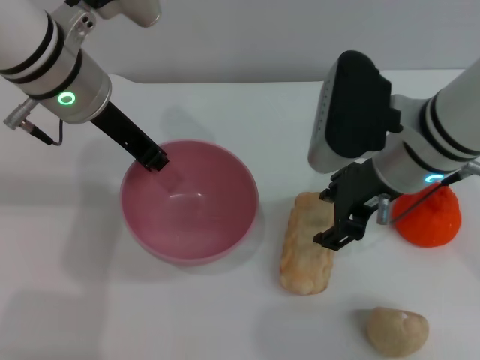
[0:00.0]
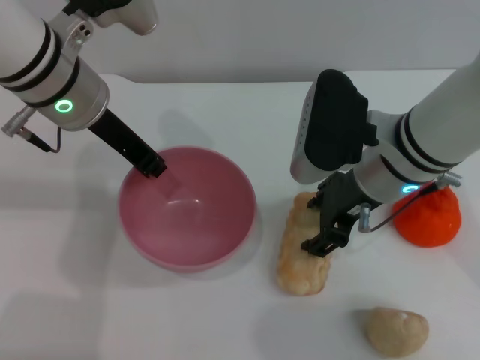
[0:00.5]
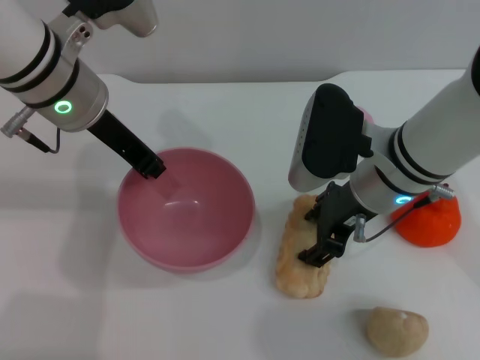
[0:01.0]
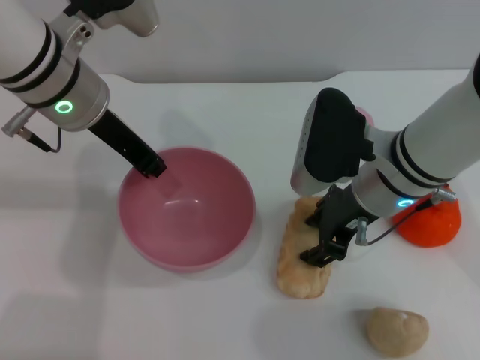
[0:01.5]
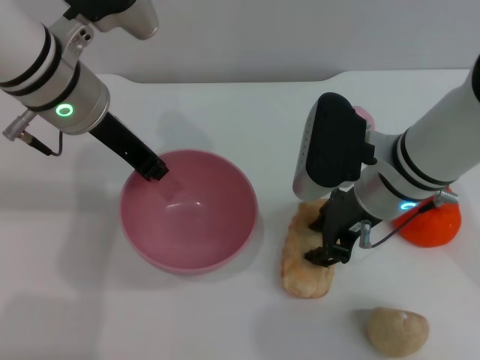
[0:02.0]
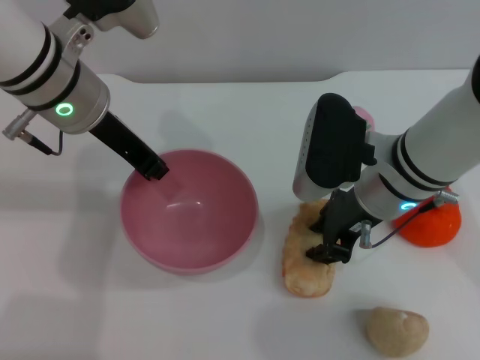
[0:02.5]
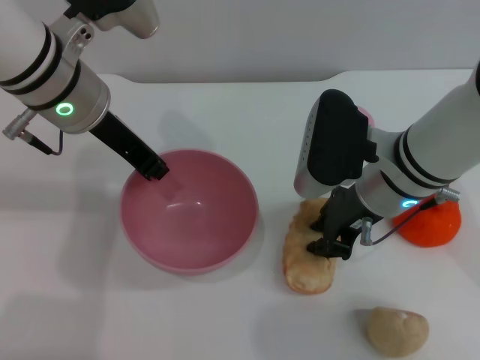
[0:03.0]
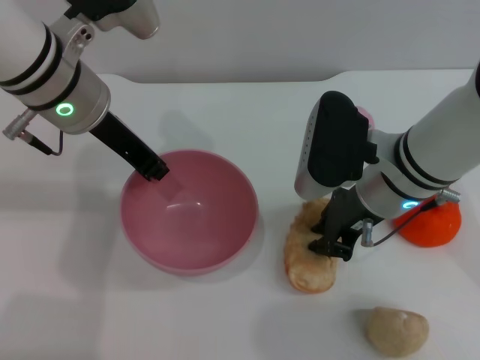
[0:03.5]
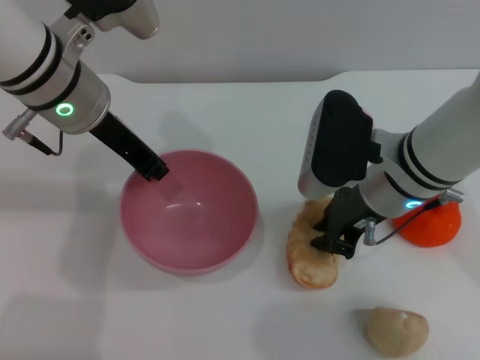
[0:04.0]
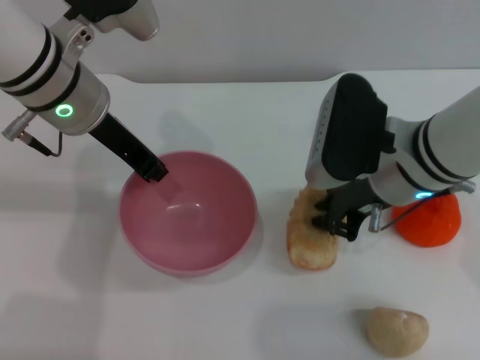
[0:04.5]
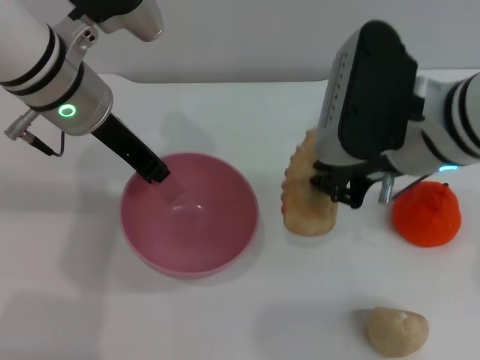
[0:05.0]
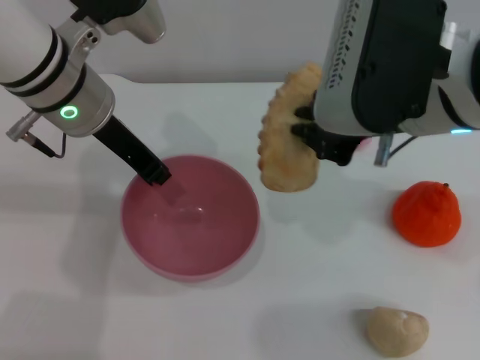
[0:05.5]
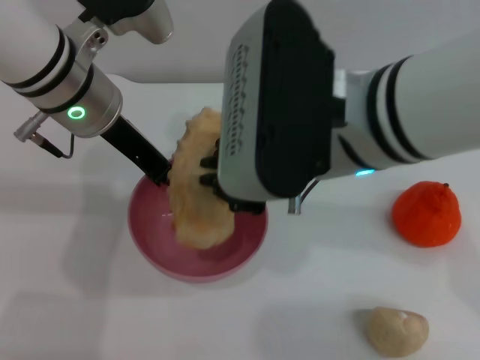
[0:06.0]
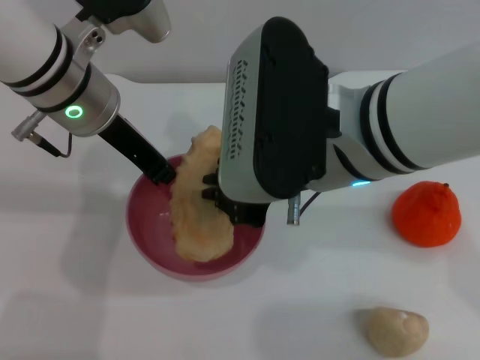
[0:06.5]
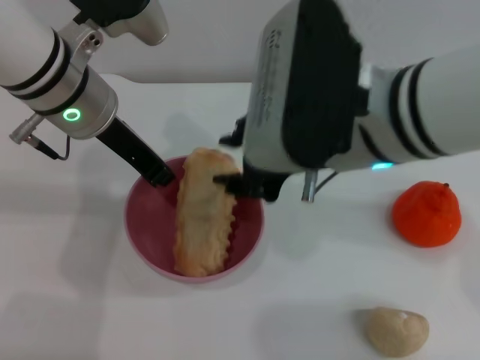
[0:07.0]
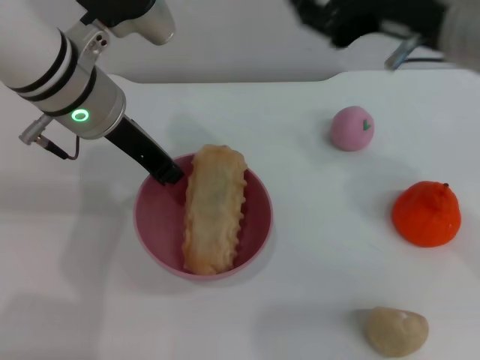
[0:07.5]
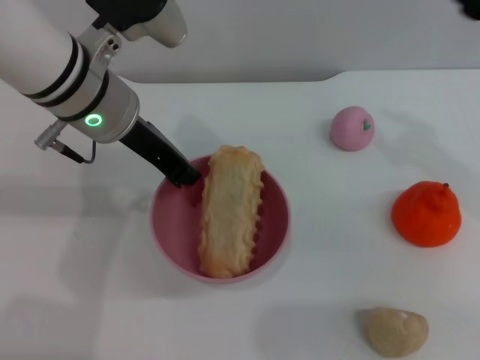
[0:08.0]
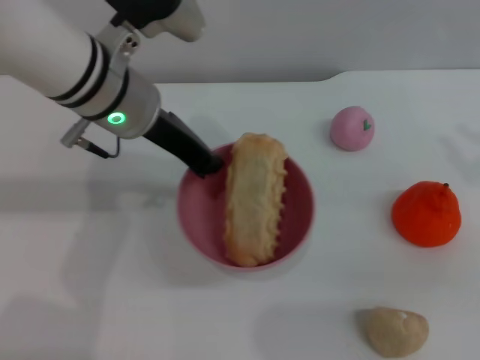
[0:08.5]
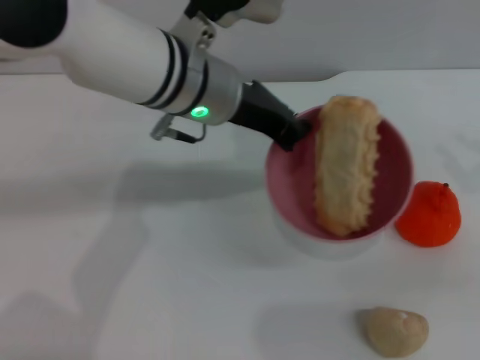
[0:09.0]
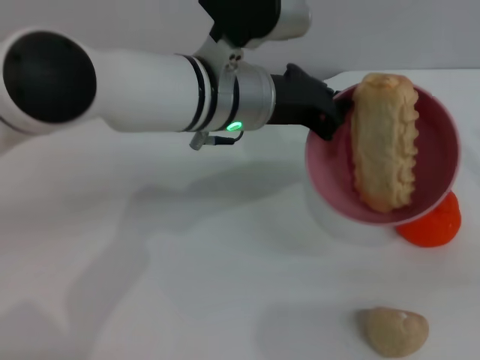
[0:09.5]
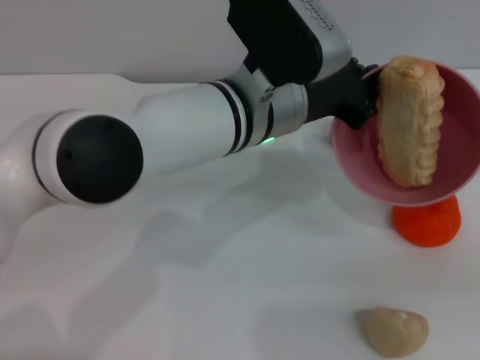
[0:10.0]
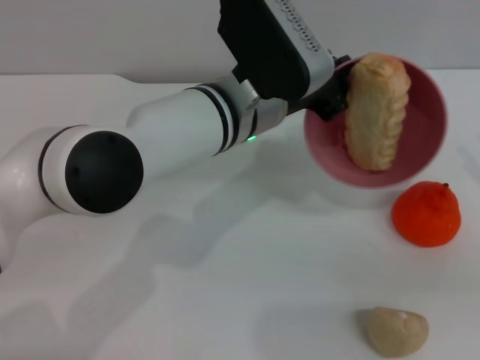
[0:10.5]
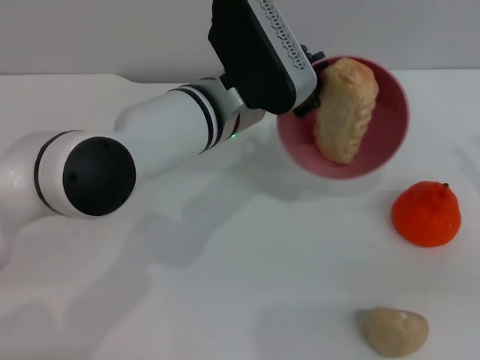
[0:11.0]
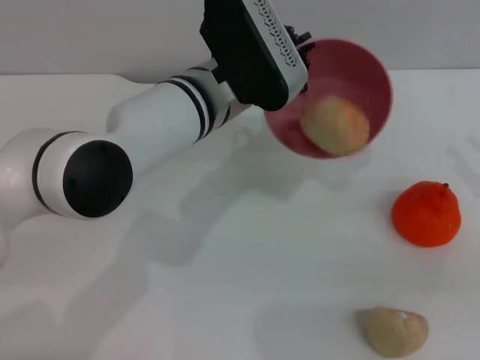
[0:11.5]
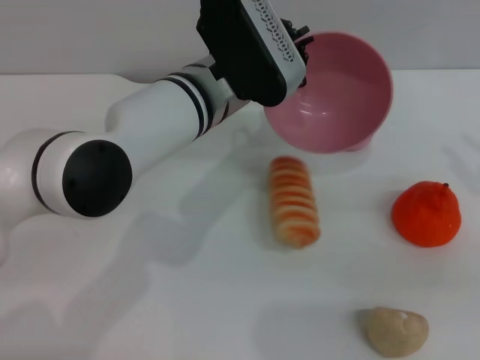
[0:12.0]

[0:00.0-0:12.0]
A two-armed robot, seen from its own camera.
Task of the whole recording: put the bread into the pink bowl and pour it out repeatedly.
Step, 0:00.0 to 0:05.0: Pick up the bread with the right gripper.
Step, 0:05.5 to 0:07.0: Place the bread into the bowl.
0:00.0 to 0:02.0: There are only small adjustments of the grippers.
0:02.0 to 0:04.0: The right gripper closes.
0:04.0 to 0:06.0: The right gripper moves upward, to the left and backward, approximately 15 cm.
0:06.0 to 0:08.0: The right gripper is displaced to the right by approximately 20 cm, and opens its fingers.
0:08.0 to 0:10.0: The right gripper shifts approximately 15 cm to the right and downward. Meanwhile the left gripper heads to the right, covering some 15 cm.

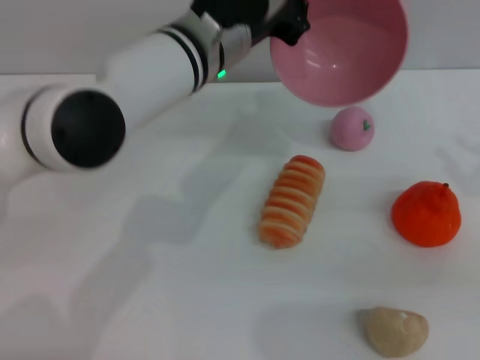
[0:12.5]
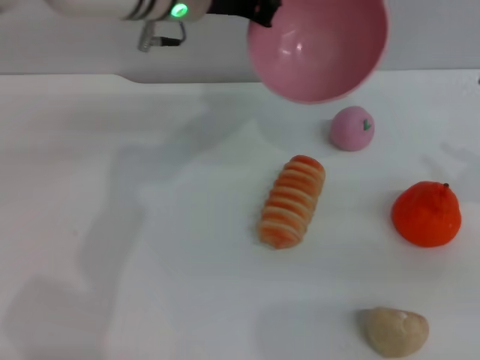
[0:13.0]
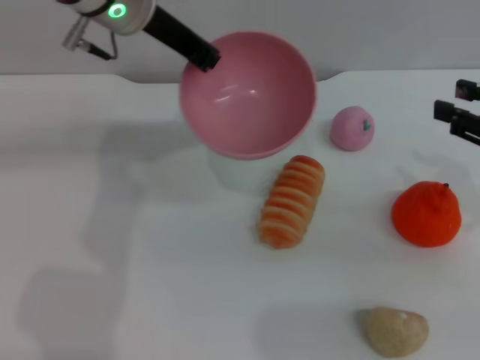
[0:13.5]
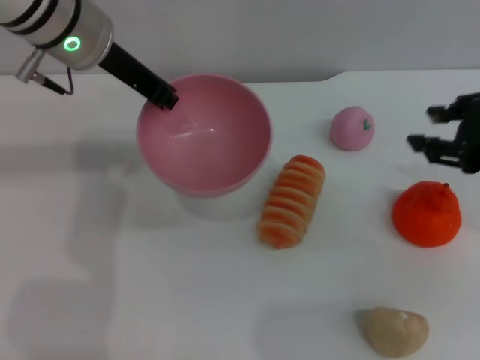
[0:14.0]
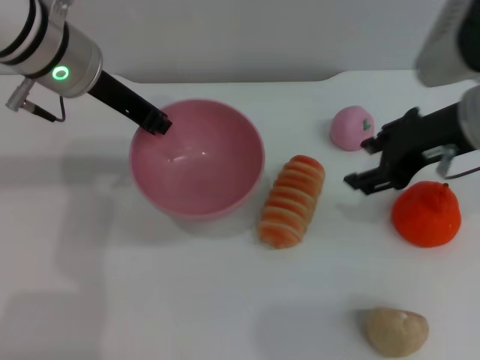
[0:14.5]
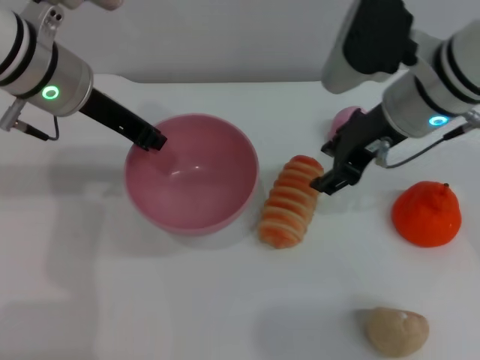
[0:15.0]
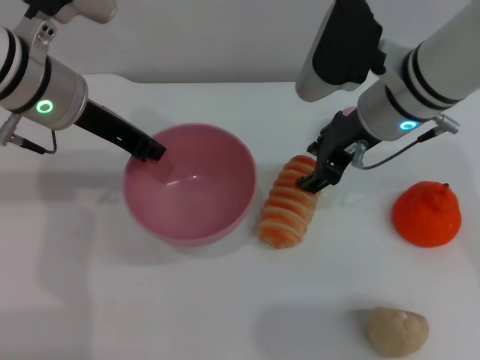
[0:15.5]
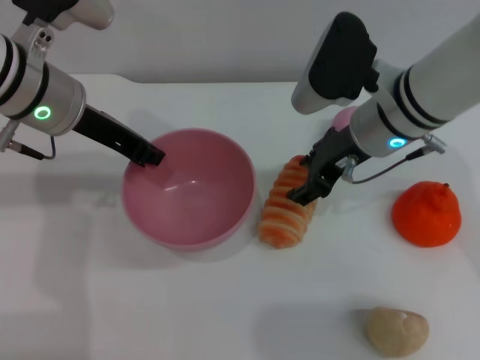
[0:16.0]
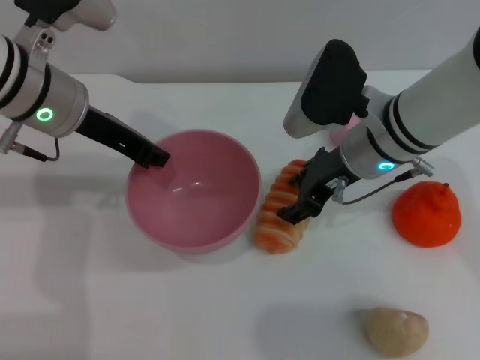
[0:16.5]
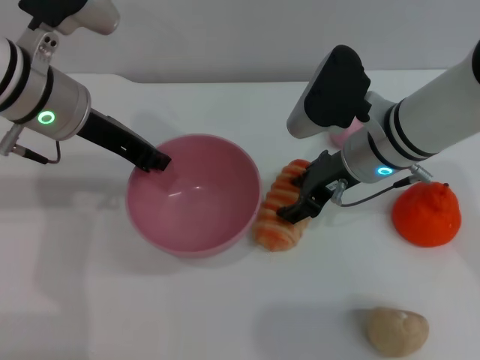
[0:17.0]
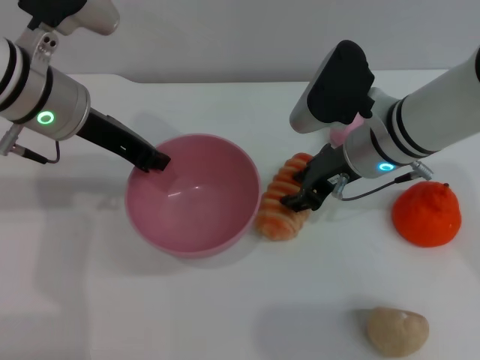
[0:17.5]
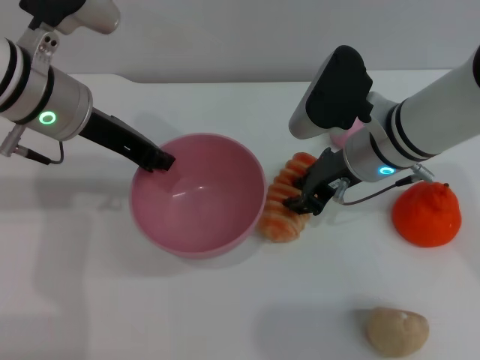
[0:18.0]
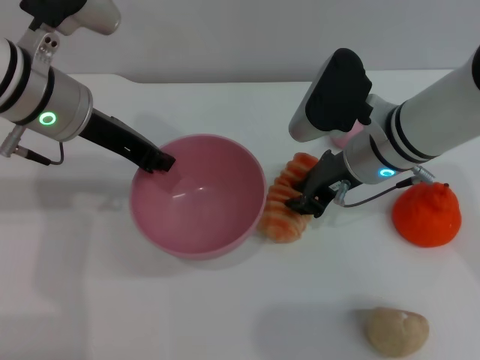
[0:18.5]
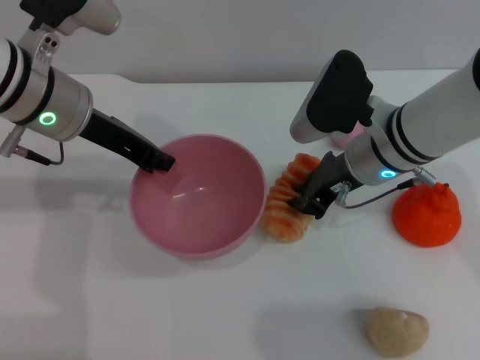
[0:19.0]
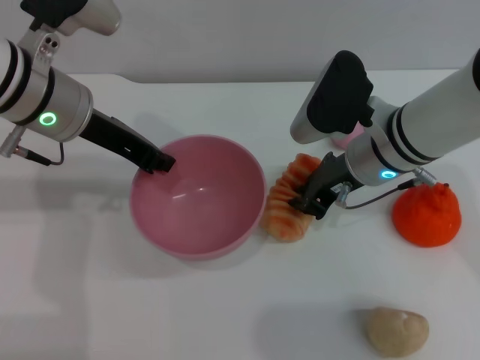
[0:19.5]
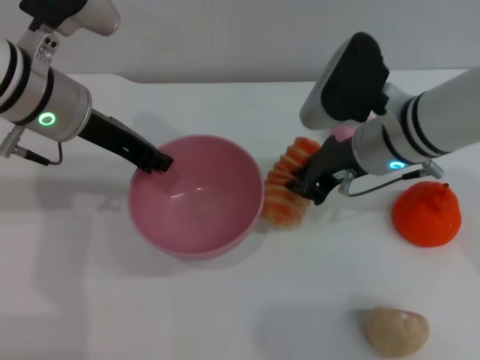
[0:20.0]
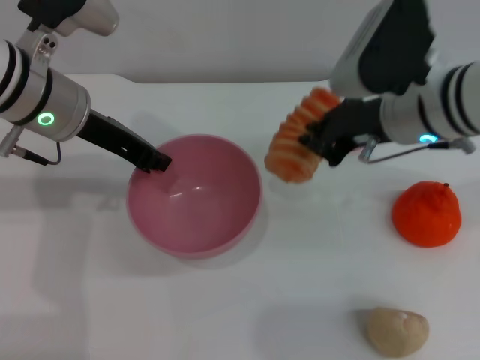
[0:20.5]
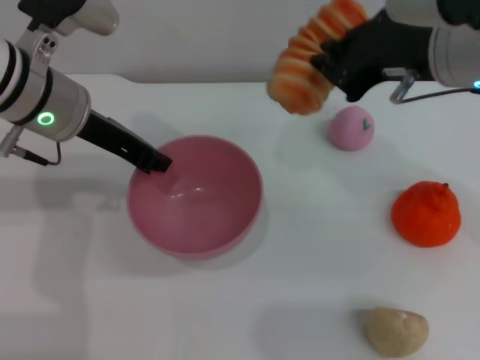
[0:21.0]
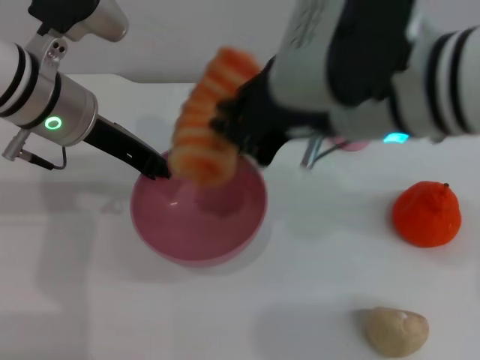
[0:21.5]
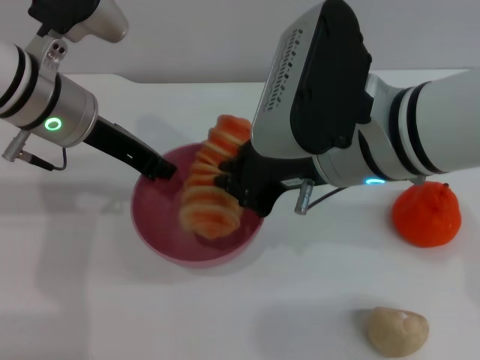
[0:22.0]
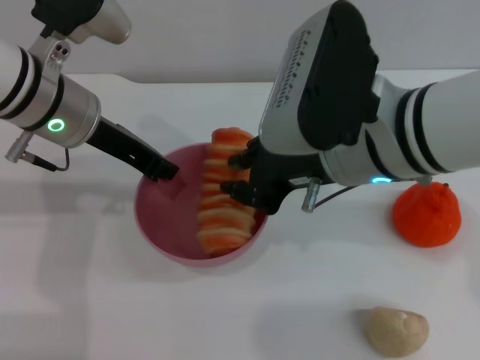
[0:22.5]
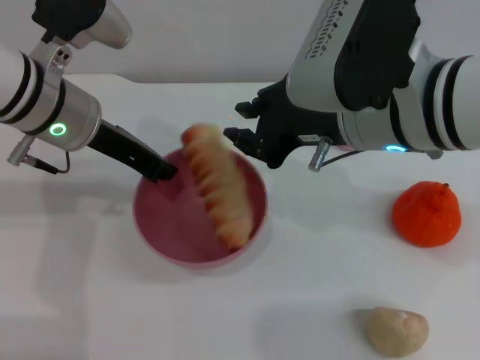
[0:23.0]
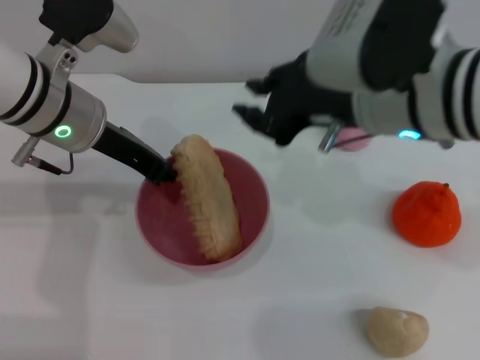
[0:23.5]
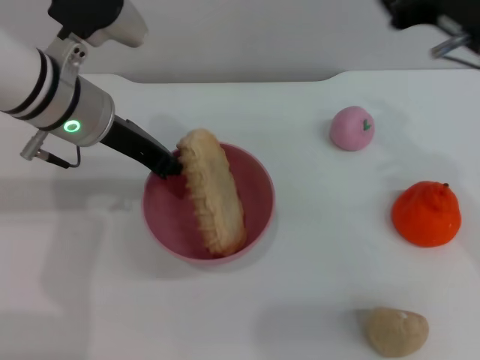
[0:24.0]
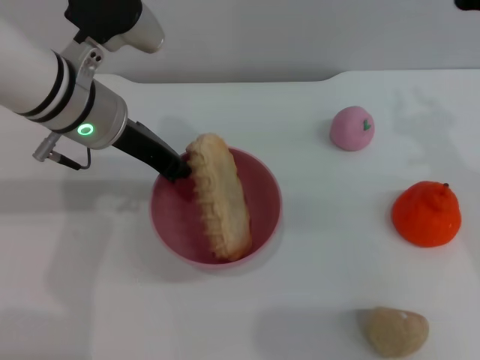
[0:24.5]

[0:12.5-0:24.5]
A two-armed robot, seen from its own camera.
Task of the whole recording: put the bread into the pink bowl and pour it out repeatedly.
Step, 0:12.5 to 0:20.0: Pick up the bread with the right gripper.
Step, 0:20.5 to 0:23.0: Place the bread into the bowl.
0:12.5 to 0:14.5: The right gripper travels to the left and forward by roughly 15 cm. The left gripper travels to the left by some 10 cm.
0:14.5 to 0:16.5: The right gripper is displaced downward and to the left by some 10 cm.
0:16.5 to 0:18.5: The right gripper closes.
0:18.5 to 0:20.5: The right gripper goes approximately 5 cm upward.
0:20.5 to 0:22.5: The right gripper heads backward and to the left, covering roughly 10 cm.
0:22.5 to 0:24.5: The right gripper shifts some 15 cm to the right.

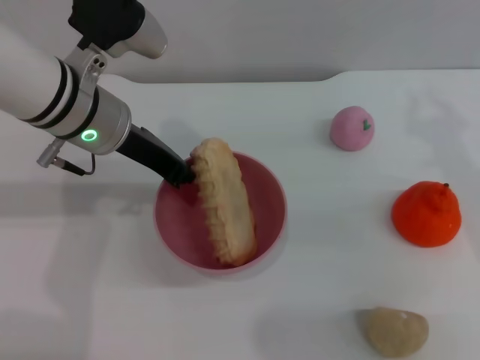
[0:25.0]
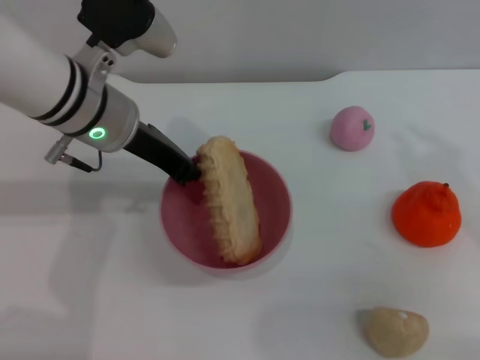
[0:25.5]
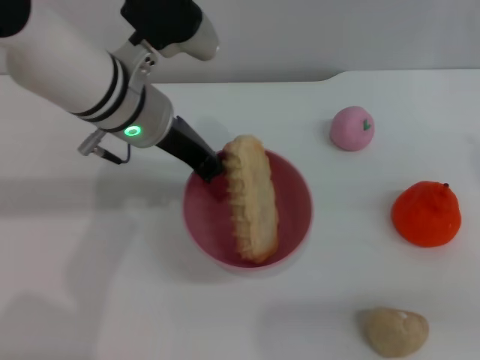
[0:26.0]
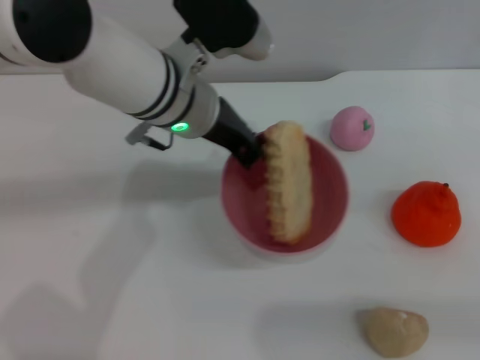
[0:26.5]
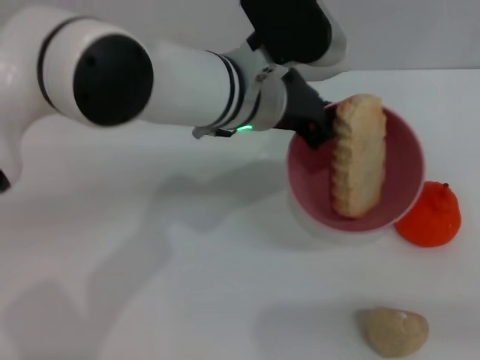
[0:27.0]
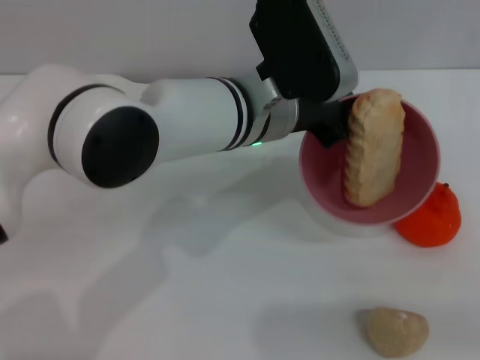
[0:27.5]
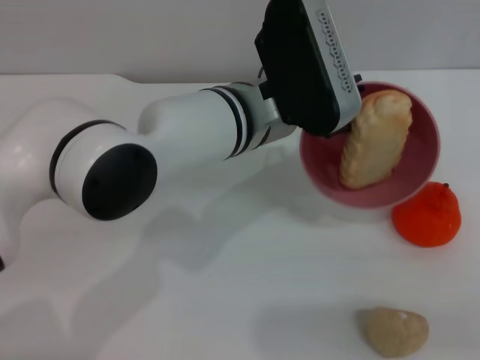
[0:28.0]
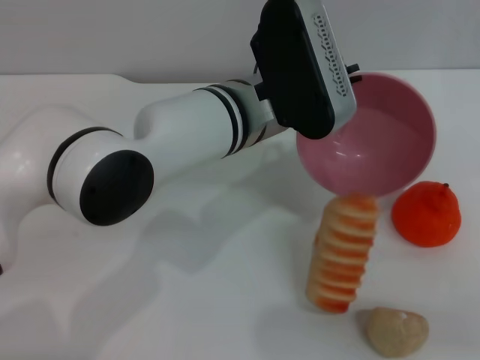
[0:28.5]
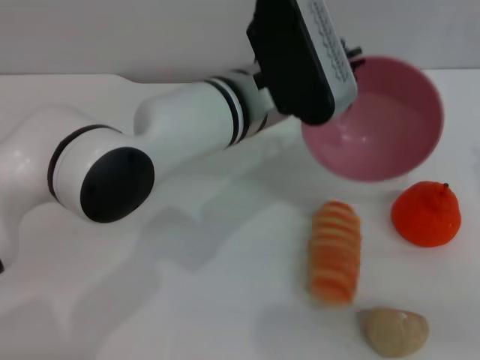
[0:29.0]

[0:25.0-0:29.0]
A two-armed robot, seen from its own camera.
Task of the whole recording: put the bread into the pink bowl and pour it out repeatedly.
0:25.0 to 0:27.0: The right gripper heads to the right and backward, covering about 15 cm, while the left gripper goes some 15 cm to the right.
